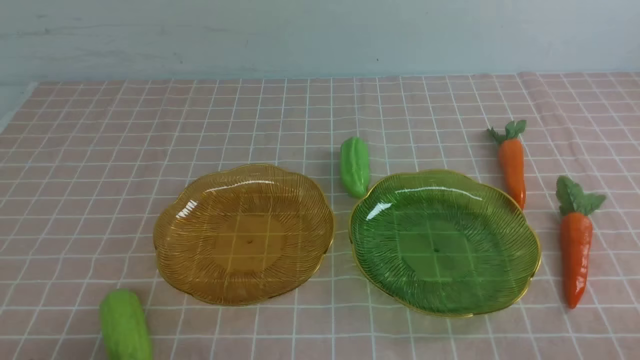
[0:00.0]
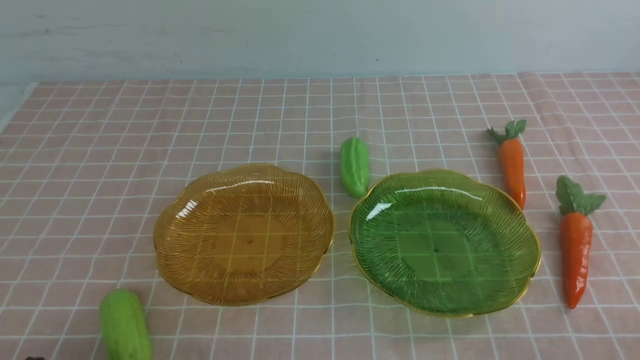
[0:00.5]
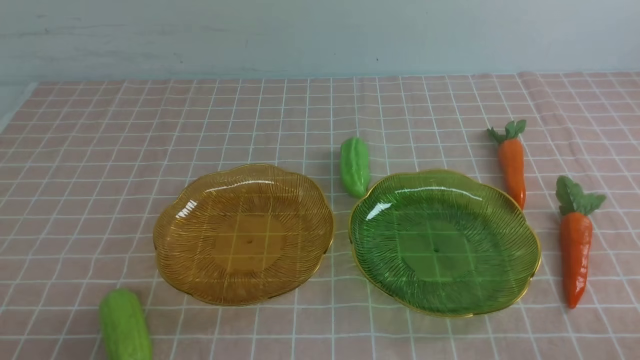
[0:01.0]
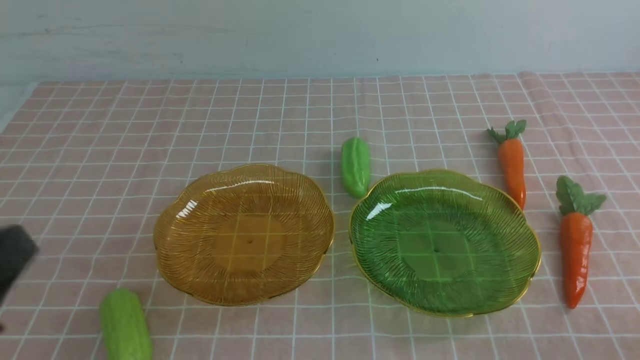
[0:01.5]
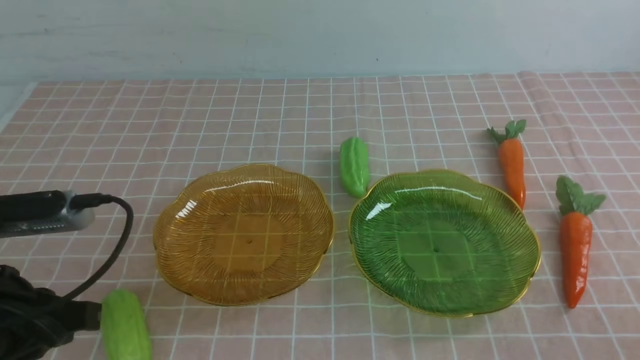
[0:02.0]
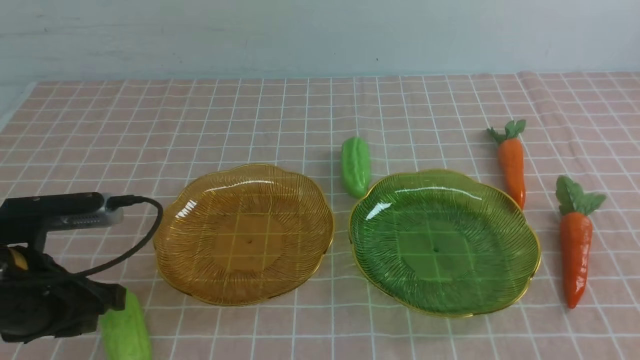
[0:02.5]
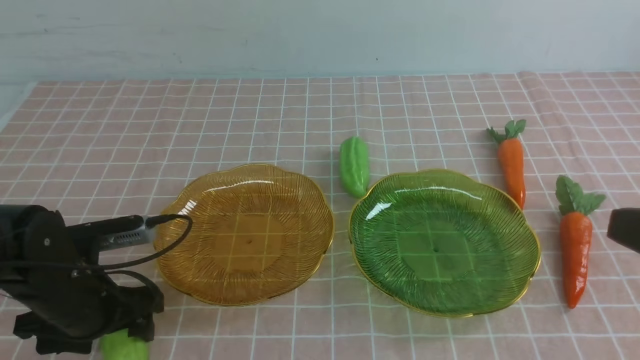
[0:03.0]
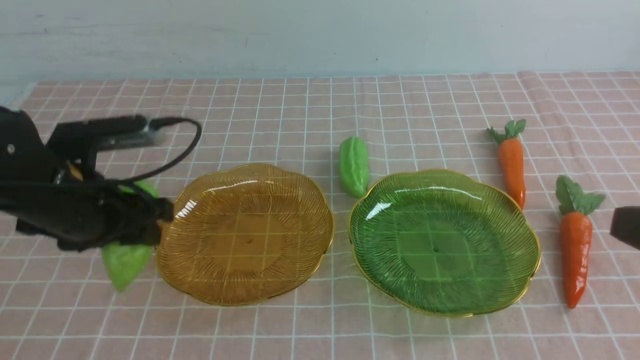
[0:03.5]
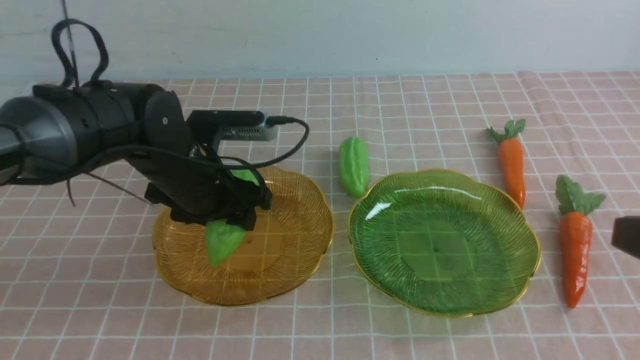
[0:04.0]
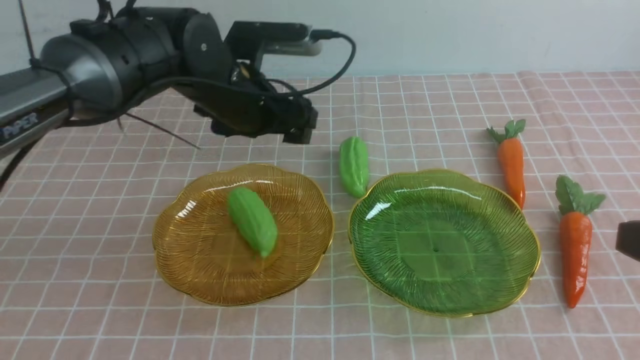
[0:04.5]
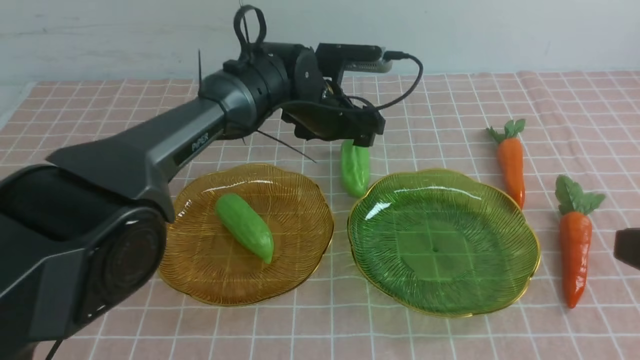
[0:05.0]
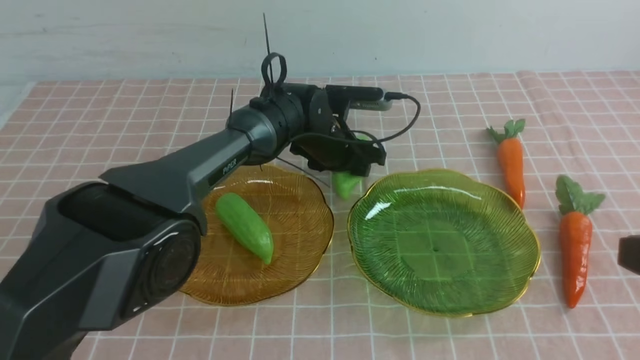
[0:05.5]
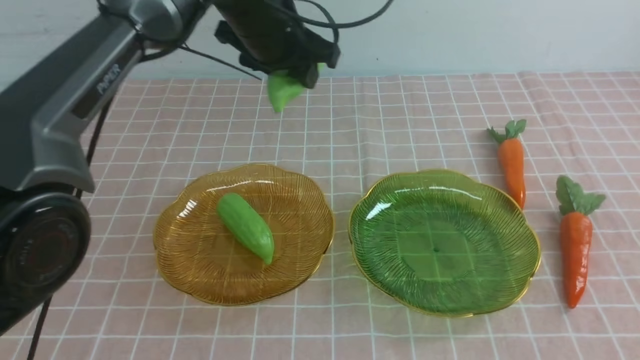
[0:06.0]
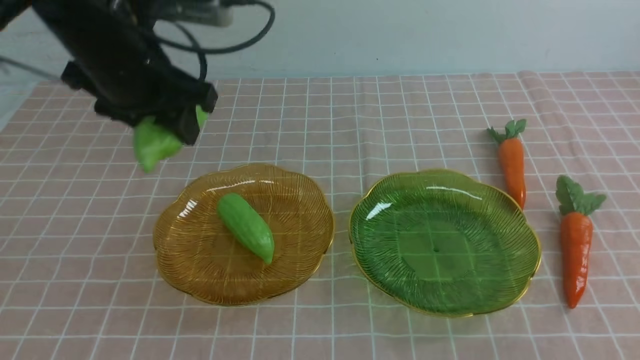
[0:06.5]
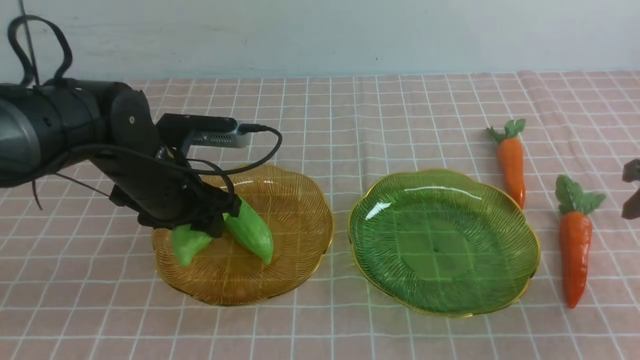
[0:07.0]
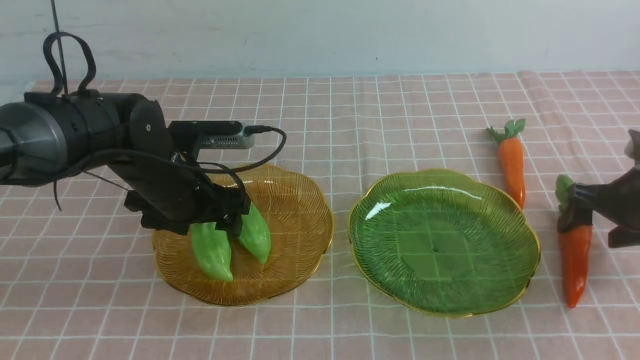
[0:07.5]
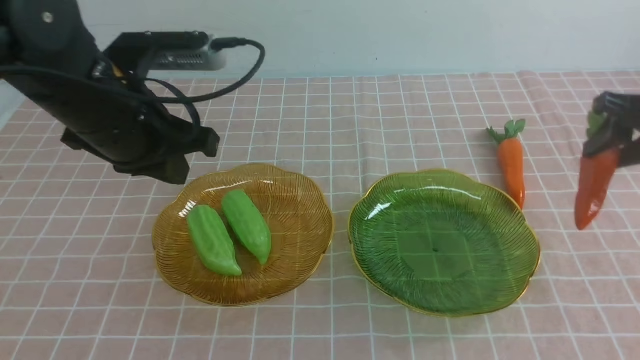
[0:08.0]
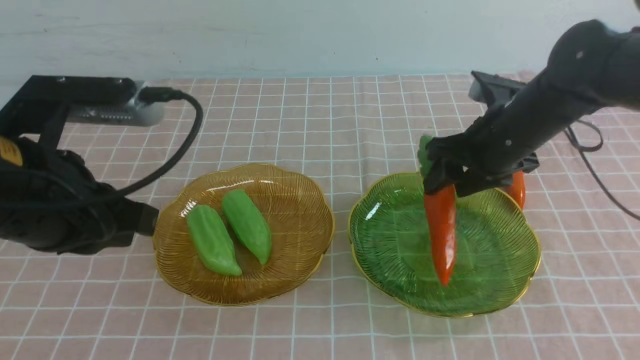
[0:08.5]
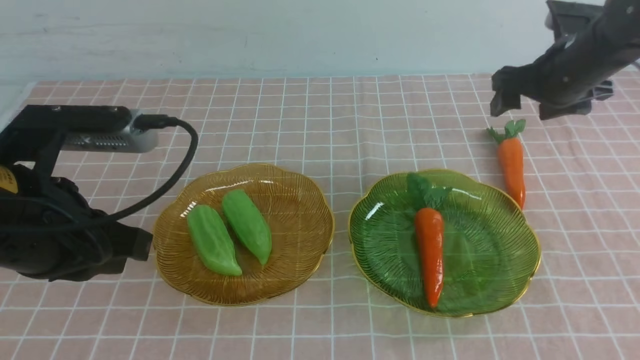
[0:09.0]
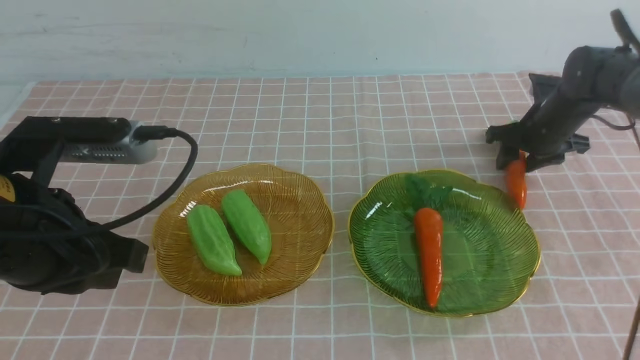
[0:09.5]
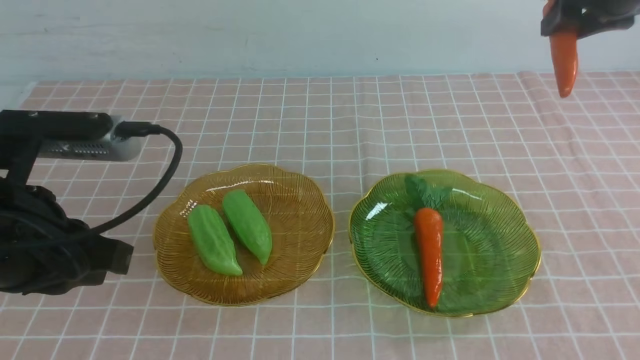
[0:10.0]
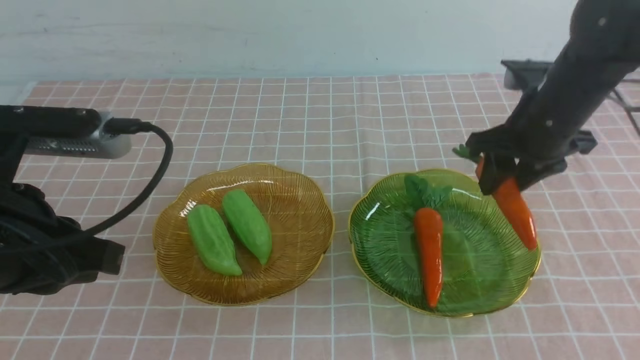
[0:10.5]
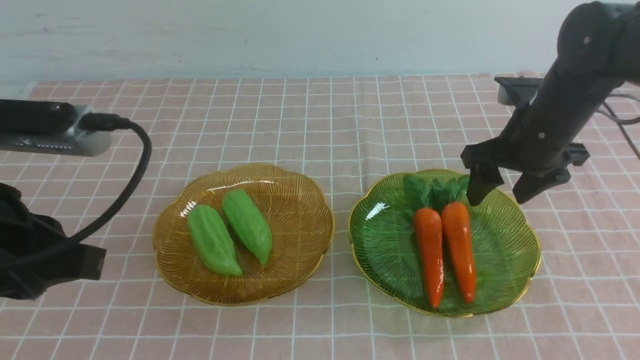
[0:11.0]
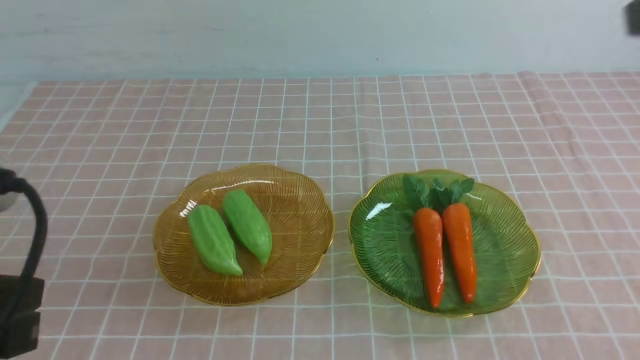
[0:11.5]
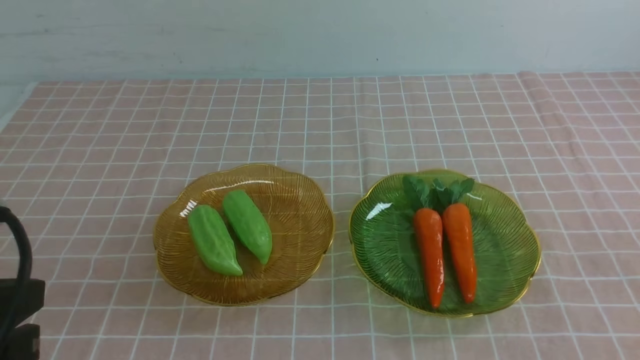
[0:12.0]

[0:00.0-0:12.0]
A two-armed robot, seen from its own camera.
Step, 0:00.0 to 0:07.5: use the left arm to grab a chayote and put it into the left plate.
Step, 0:08.0 to 0:10.5: use the right arm to grab a carrot and put it into the right plate.
0:00.0 to 0:02.0: The left gripper is displaced upward and forward by approximately 15 cm.
0:02.0 to 0:04.0: The left gripper moves forward and to the right, roughly 20 cm, and opens its fingers, while the right gripper goes some 10 cm upward and forward.
0:04.0 to 0:06.0: The left gripper moves up and down over about 15 cm, changing direction 2 times. The right gripper ends up roughly 5 cm from where it was.
0:06.0 to 0:08.0: The right gripper heads forward and downward, covering some 25 cm, and opens up. The left gripper is displaced backward and to the left by about 15 cm, and closes.
0:08.0 to 0:10.0: The right gripper heads upward, forward and to the left, covering some 15 cm, and opens, then closes once more; the left gripper shifts some 15 cm backward.
0:10.0 to 0:12.0: The left gripper moves backward, roughly 10 cm; the right gripper is displaced backward by approximately 40 cm, and closes up.
